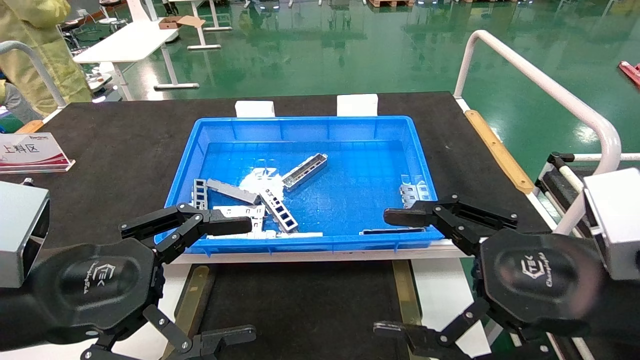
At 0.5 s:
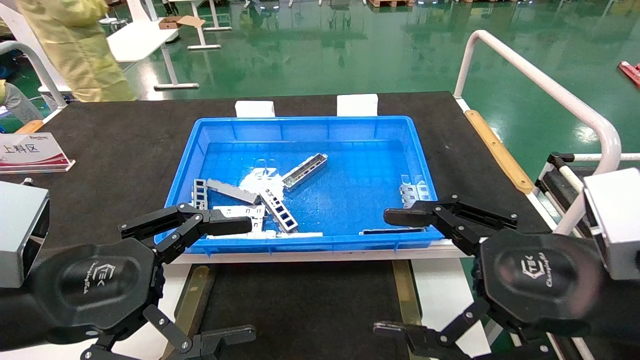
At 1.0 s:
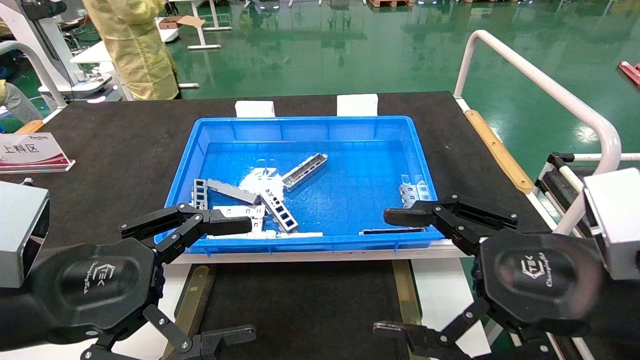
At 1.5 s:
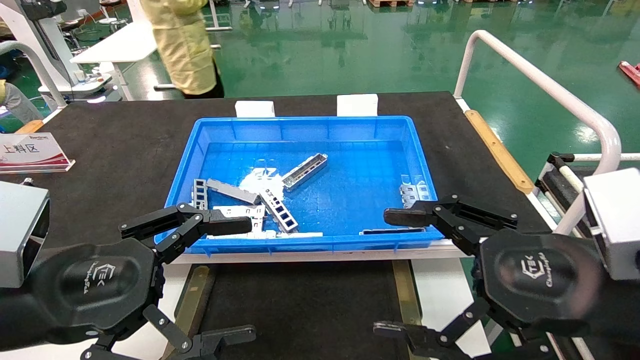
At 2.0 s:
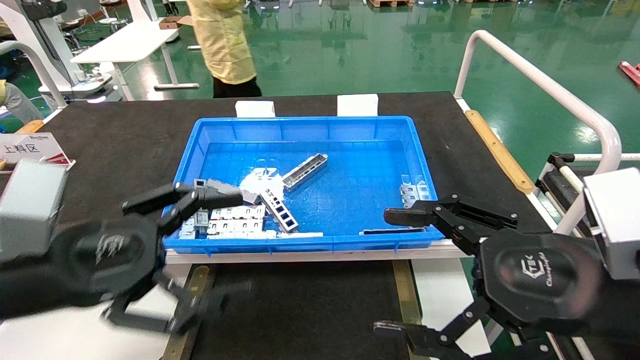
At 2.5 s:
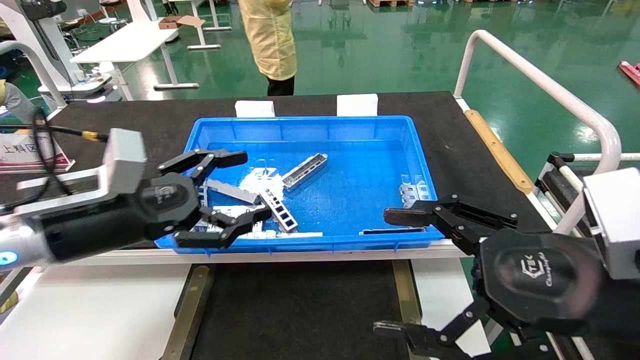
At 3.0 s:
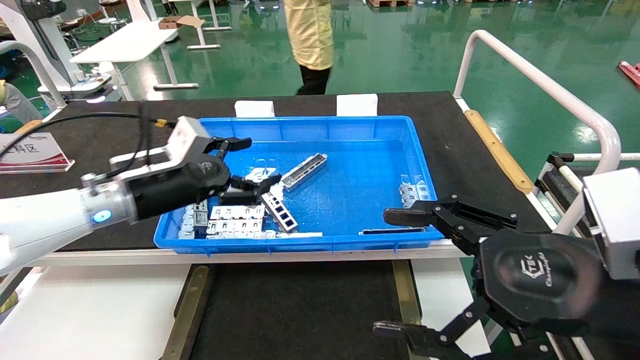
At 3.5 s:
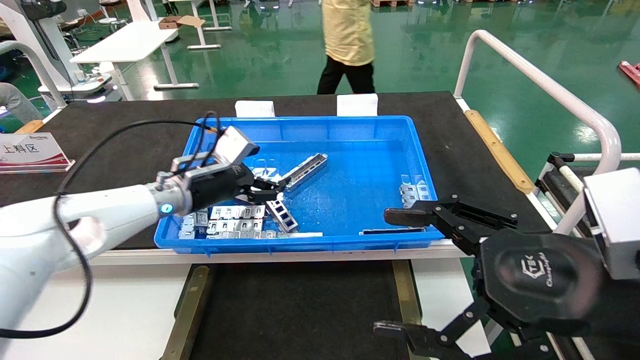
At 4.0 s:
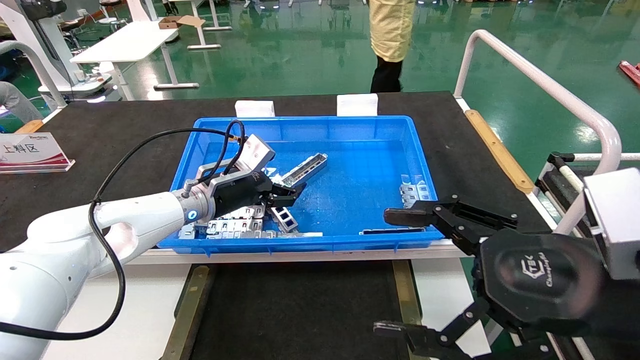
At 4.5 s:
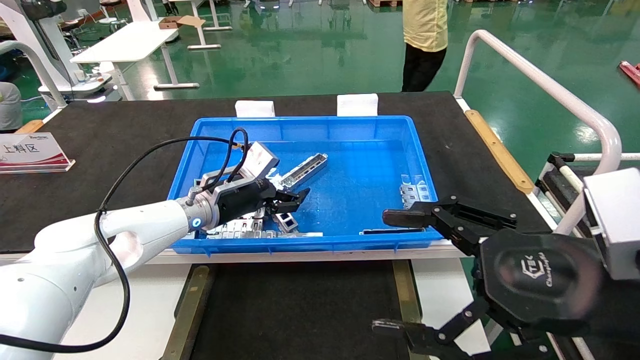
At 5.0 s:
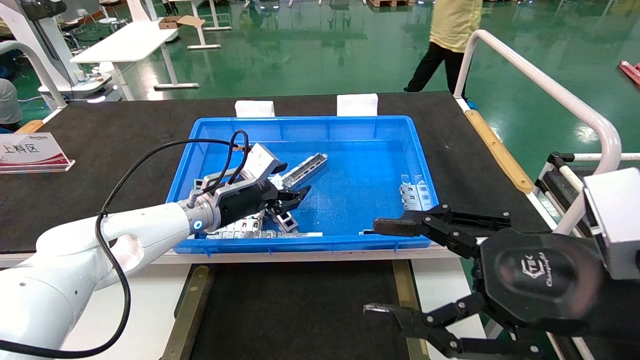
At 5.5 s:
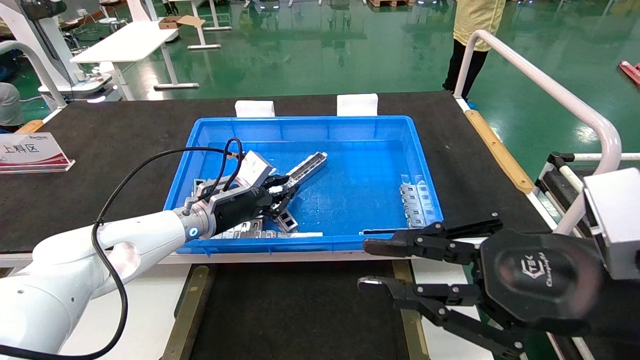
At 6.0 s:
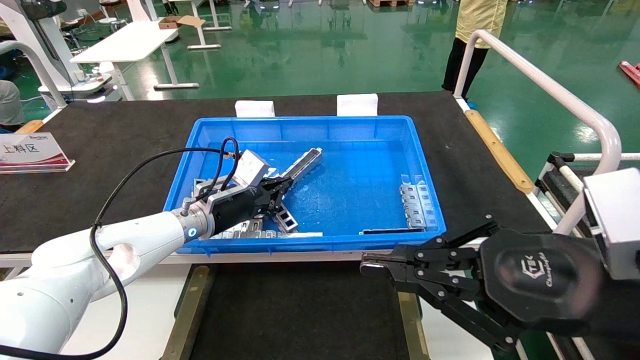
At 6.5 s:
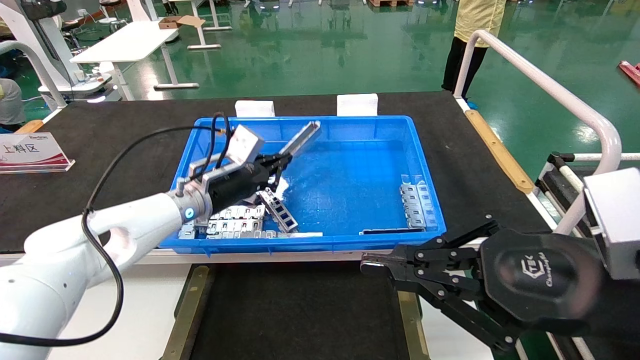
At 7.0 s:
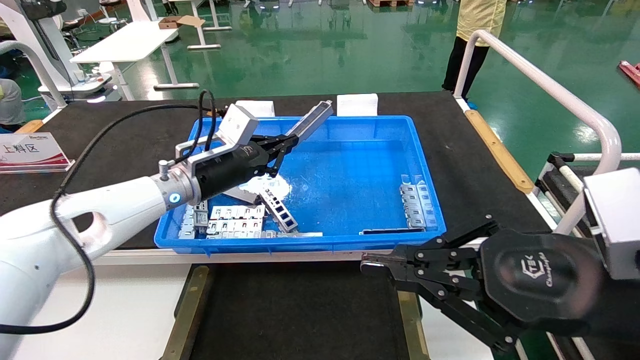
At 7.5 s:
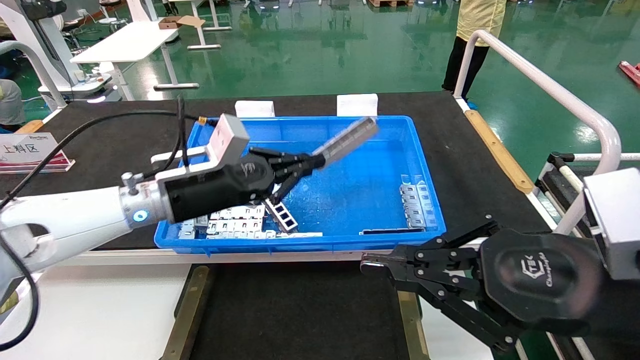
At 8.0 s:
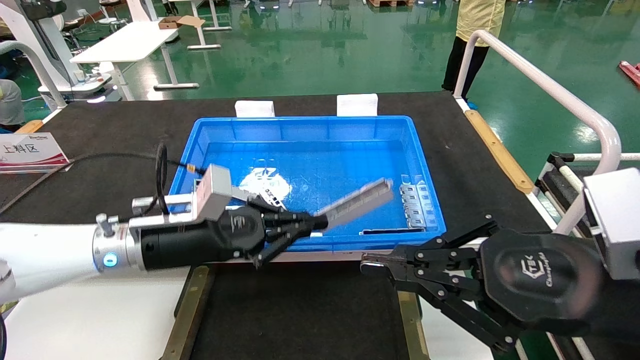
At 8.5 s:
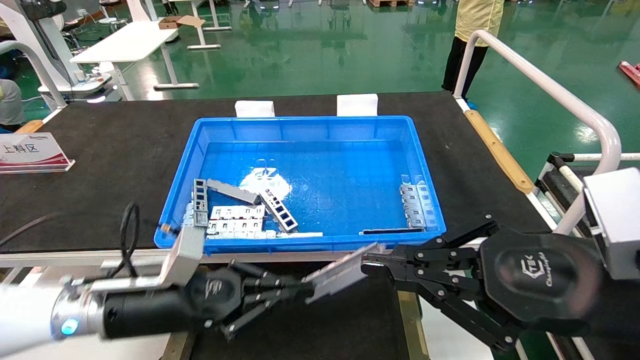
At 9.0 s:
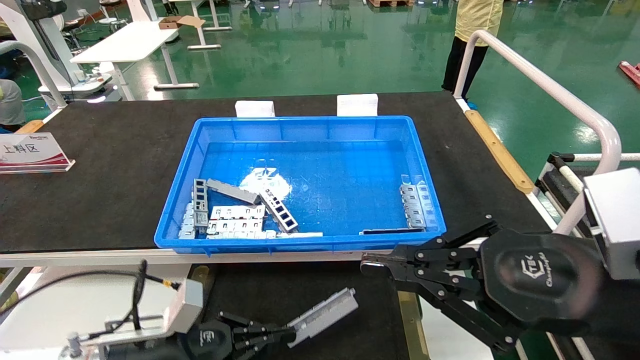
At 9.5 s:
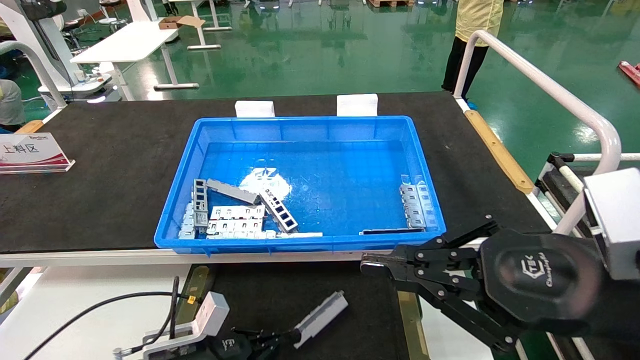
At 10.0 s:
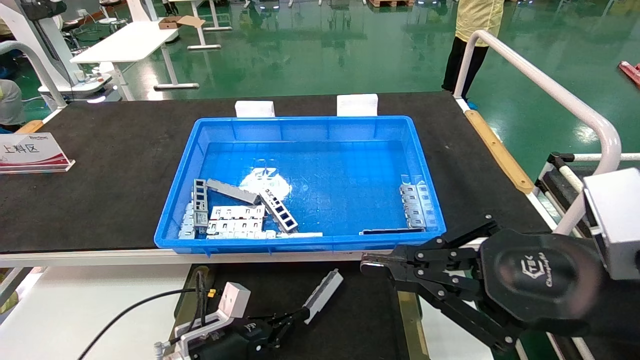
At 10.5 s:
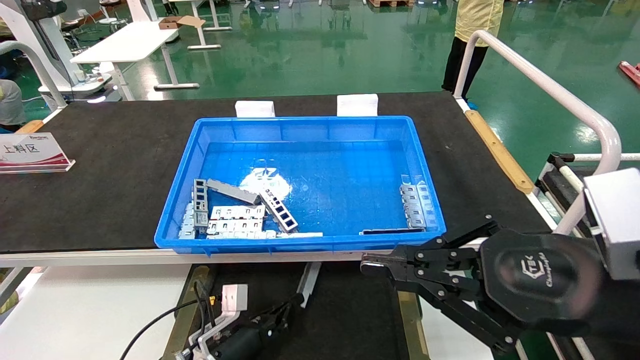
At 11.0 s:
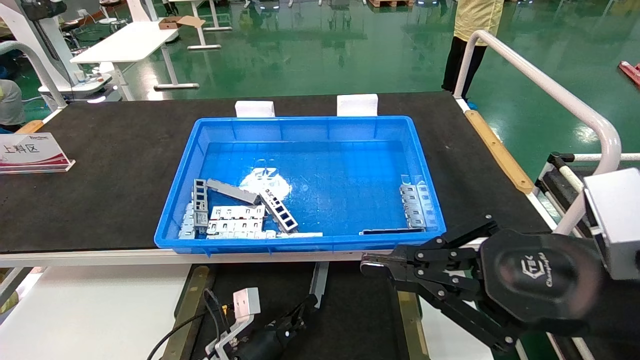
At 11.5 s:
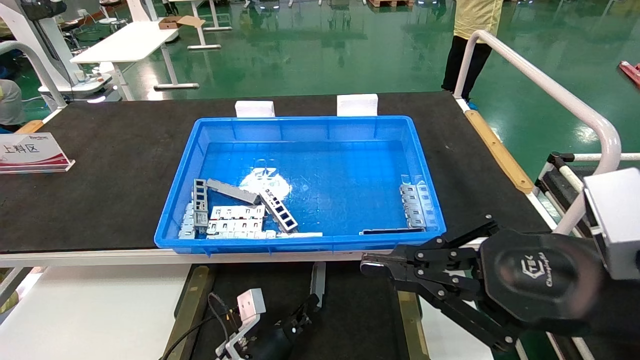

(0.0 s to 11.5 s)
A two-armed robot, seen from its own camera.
Task of the whole recording: Grasp the part with one hand and place it on the black container.
Step, 2.0 s - 5.5 s: Pick up the front USB bracket from the feeding area.
0.0 s - 2.0 s: The grippers make only small movements.
2.0 s - 4.0 s: The left gripper heads forward, covering some 25 cm.
4.0 s - 6.0 s: The left gripper closes up, while the right gripper closes its fingers.
6.0 s - 7.5 s: The left gripper goes approximately 10 cm backward and upward.
7.5 s - 9.5 s: The left gripper heads downward, covering about 25 cm.
9.5 s - 11.5 s: The left gripper heads to the right and downward, covering about 15 cm.

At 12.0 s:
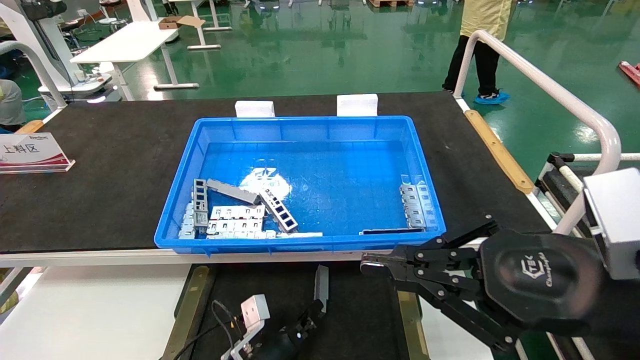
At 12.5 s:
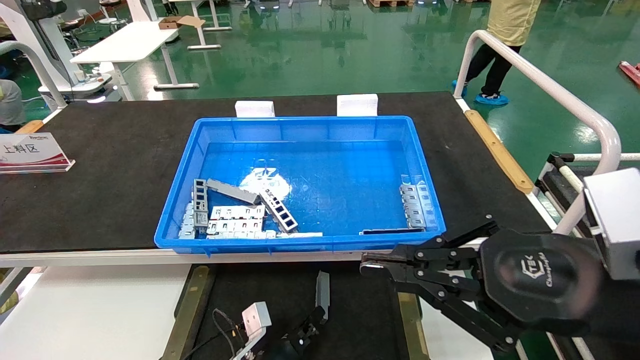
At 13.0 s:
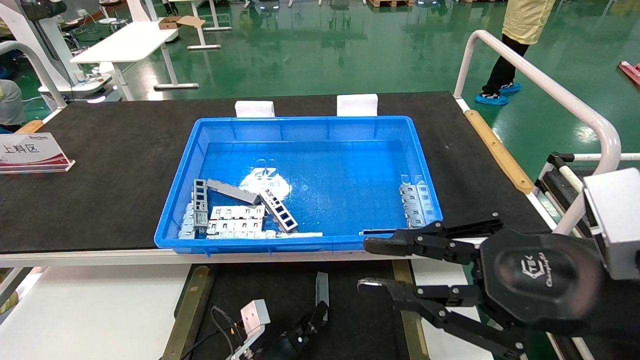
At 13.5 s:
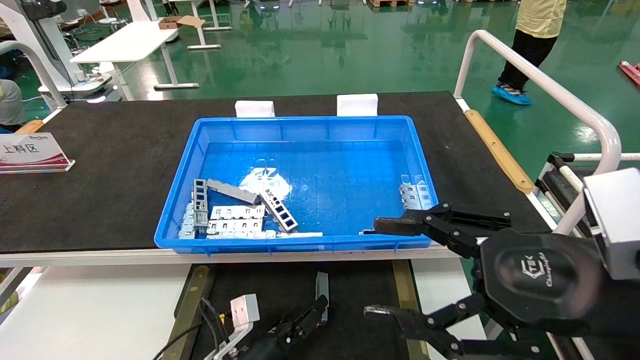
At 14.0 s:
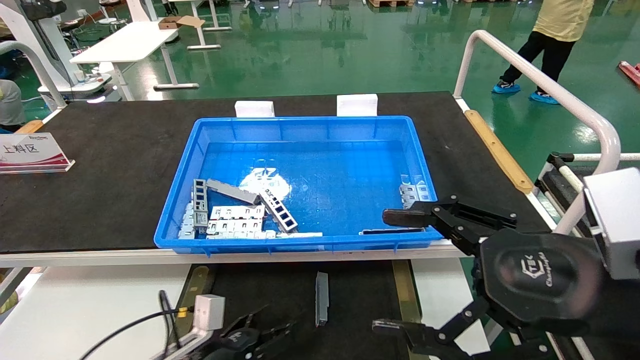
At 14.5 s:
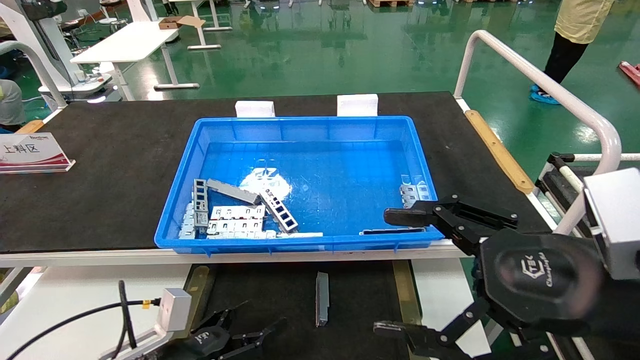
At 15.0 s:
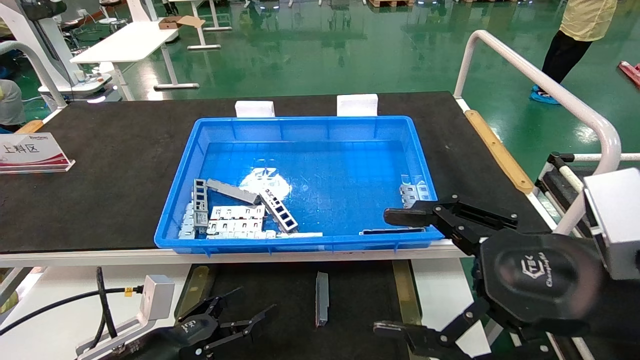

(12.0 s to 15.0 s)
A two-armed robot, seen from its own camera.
Task of the whole recording: Grasp the part with one hand and place it on the black container.
12.0 s - 13.5 s: The left gripper opens its fingers, while the right gripper opens.
13.5 s - 15.0 s: The left gripper is displaced to the left, upward and backward by some 15 cm, and opens. Meanwhile the right gripper opens up.
